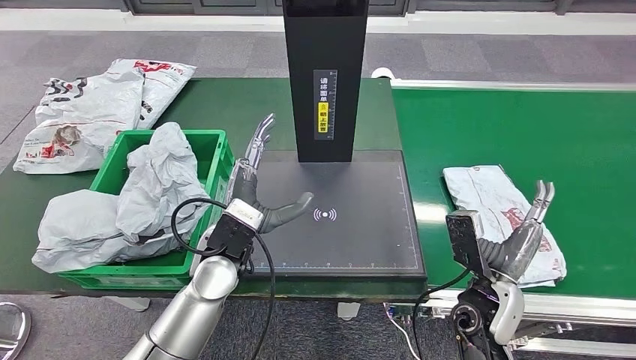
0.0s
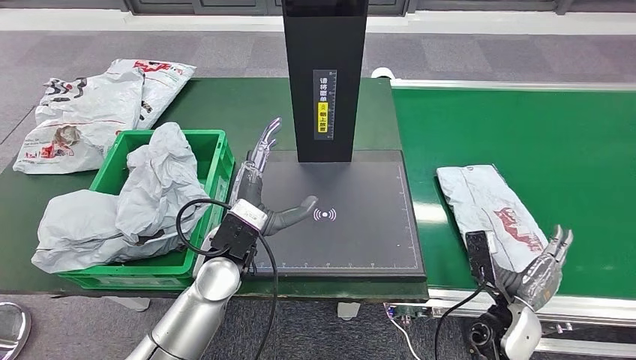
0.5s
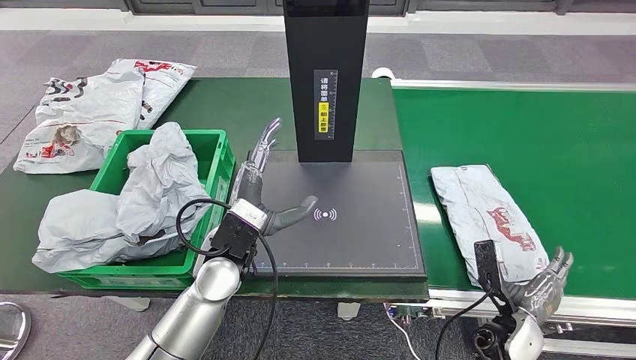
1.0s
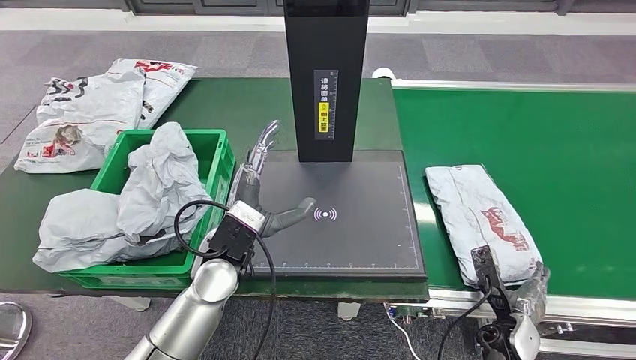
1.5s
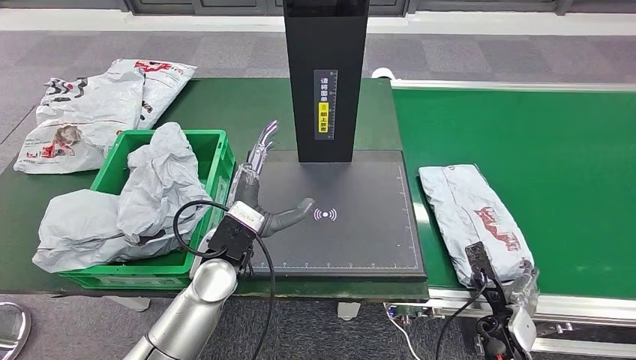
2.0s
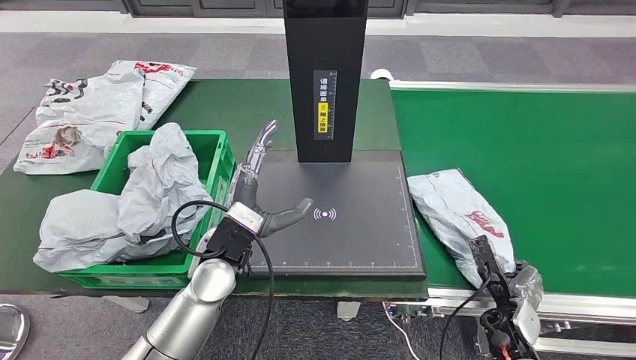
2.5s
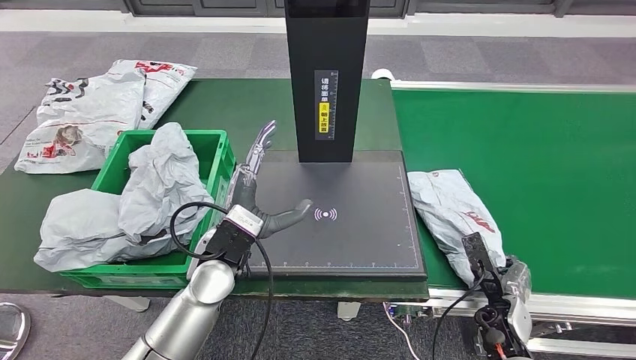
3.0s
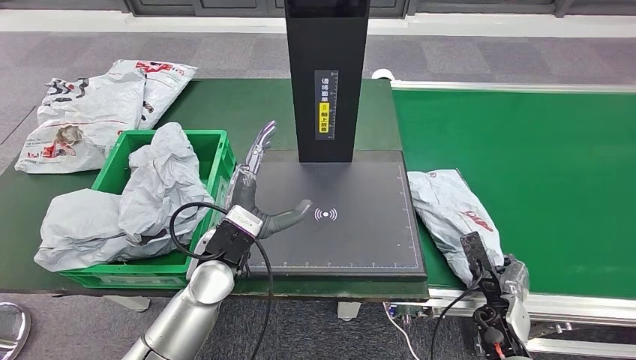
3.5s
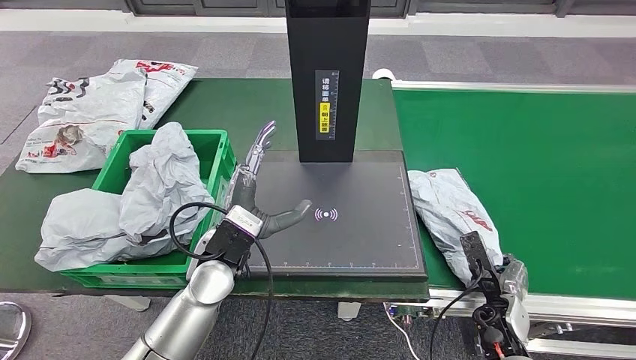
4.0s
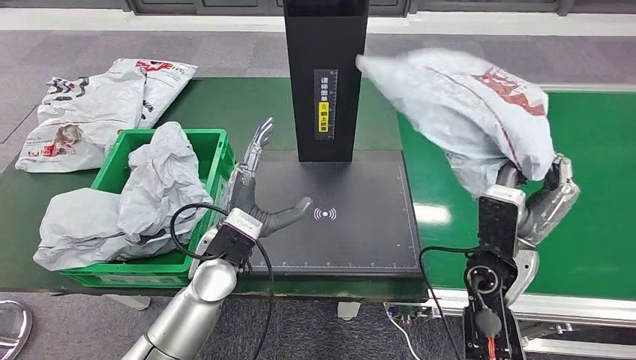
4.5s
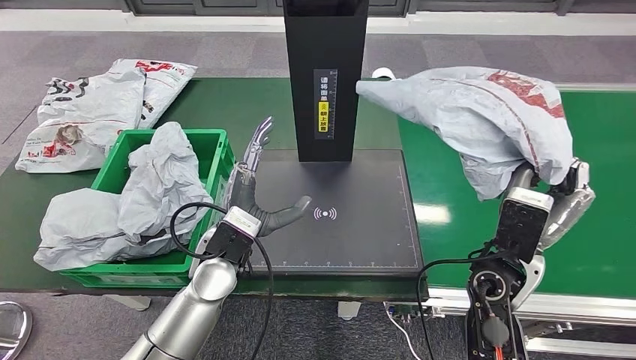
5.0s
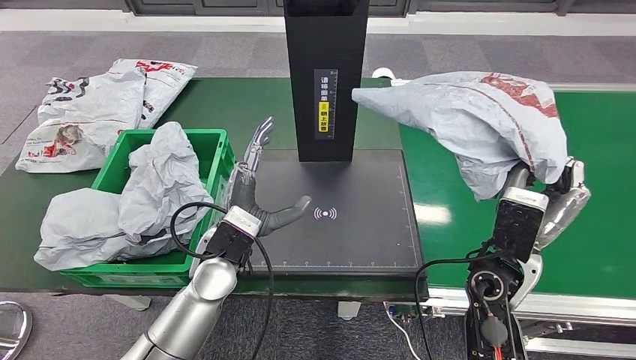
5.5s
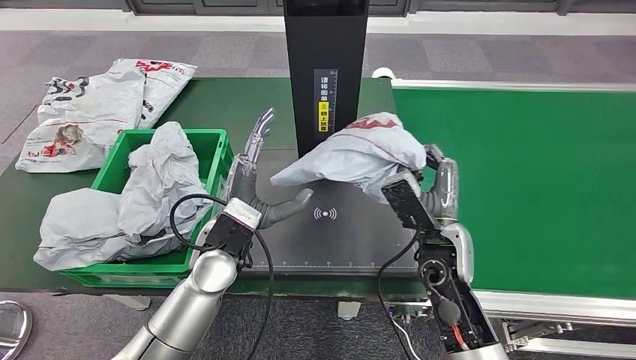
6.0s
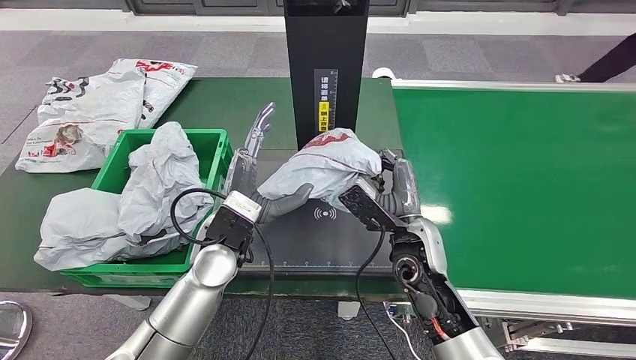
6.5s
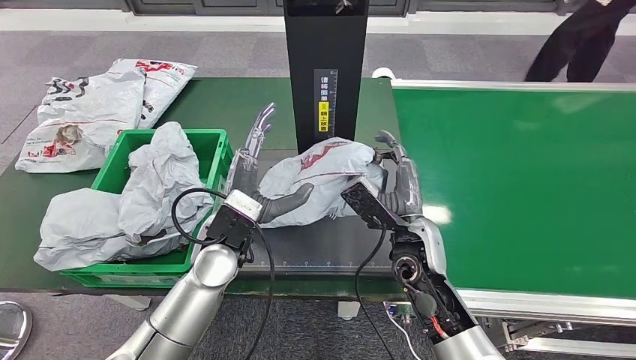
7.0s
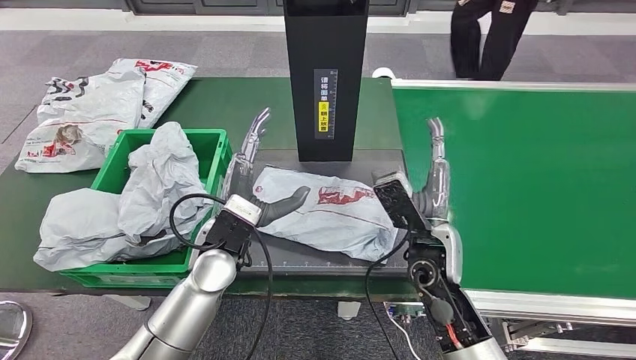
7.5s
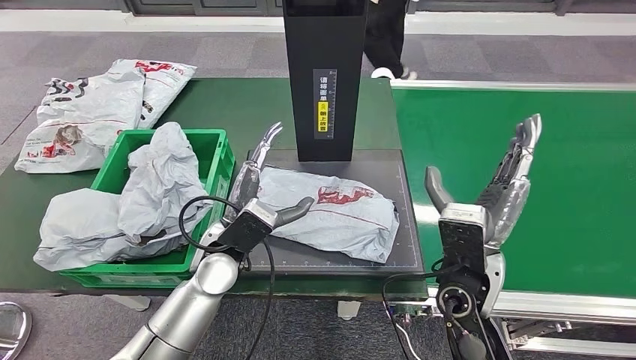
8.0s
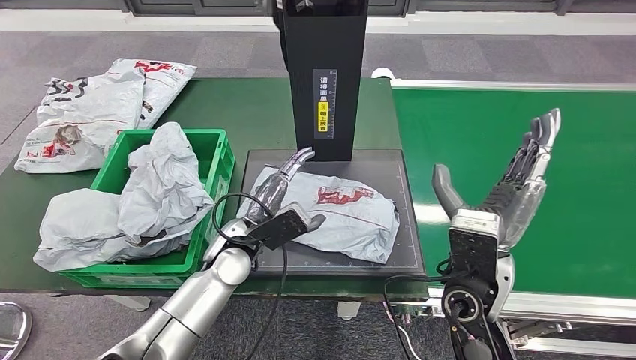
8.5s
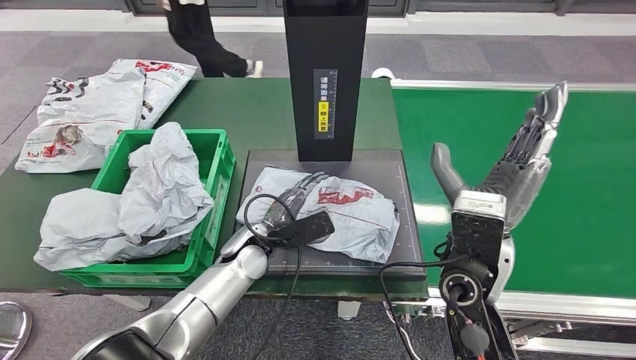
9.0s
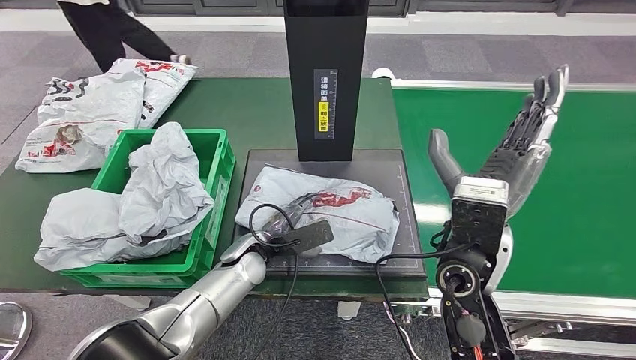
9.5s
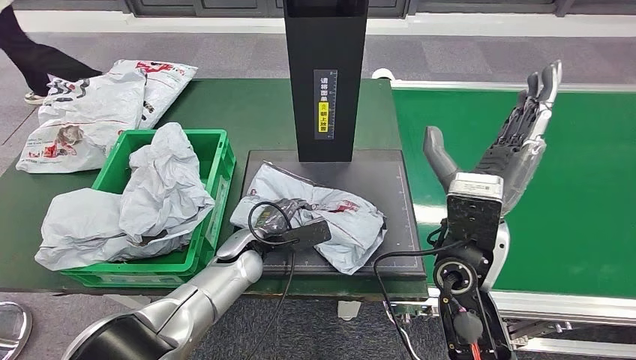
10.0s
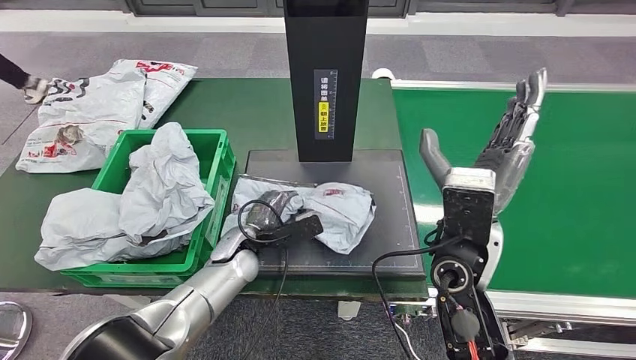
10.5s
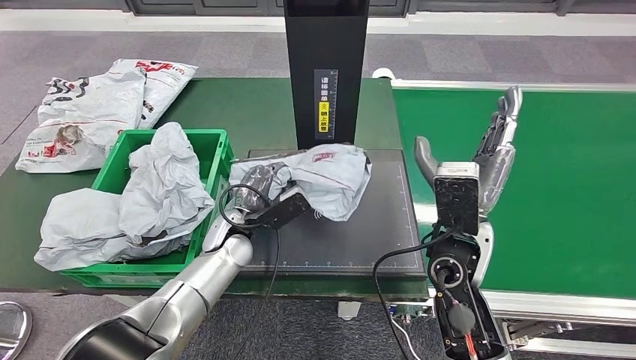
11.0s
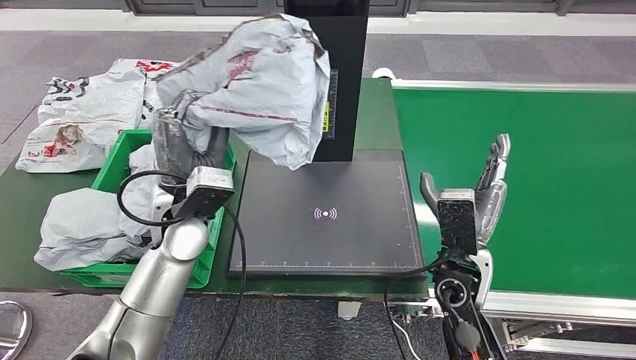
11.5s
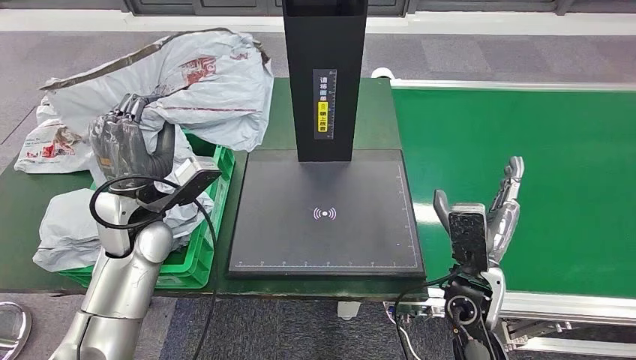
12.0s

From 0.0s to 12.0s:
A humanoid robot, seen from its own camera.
Step, from 1.0s to 5.0s: Pick up the parcel from the conveyor belt.
Step, from 5.5s to 8.5s: Place the parcel onto the inbound machine.
From 0.0s to 2.0s: The right hand travels downward and to the right by some 15 cm.
From 2.0s to 4.0s: The hands stay close to where they were, moving slightly.
From 6.0s to 8.0s: The right hand shifts by approximately 5 cm.

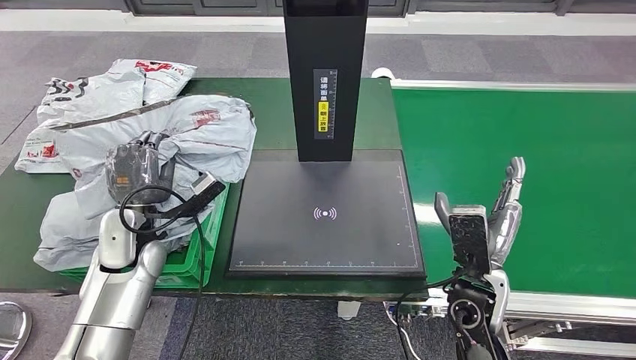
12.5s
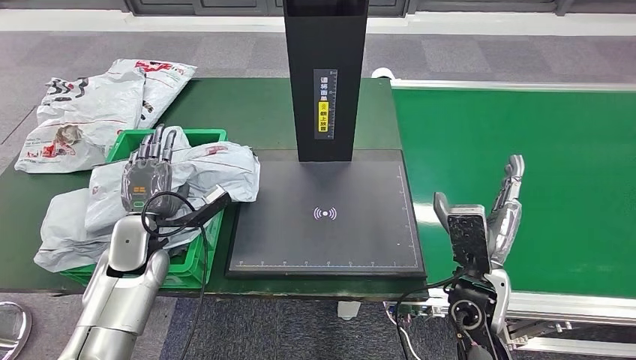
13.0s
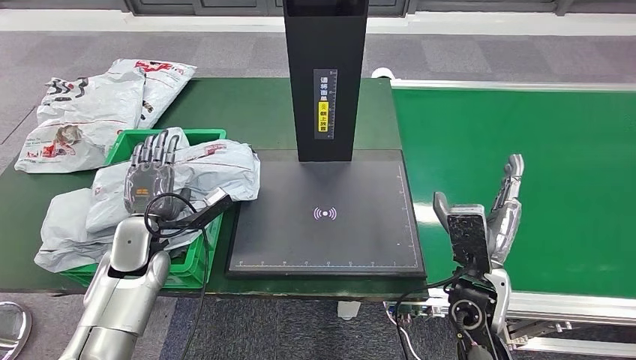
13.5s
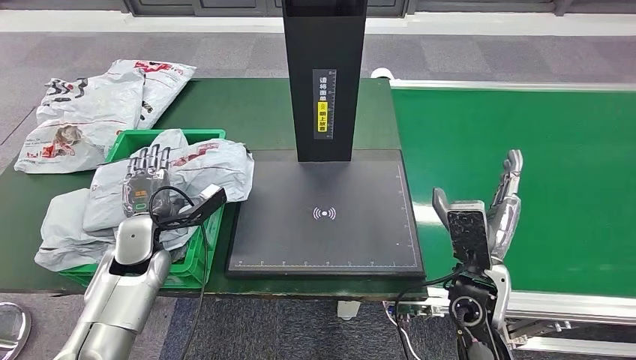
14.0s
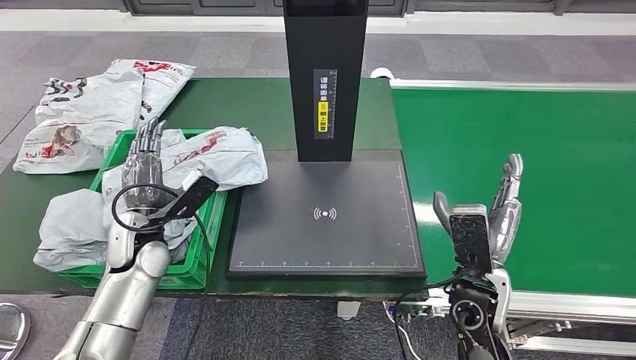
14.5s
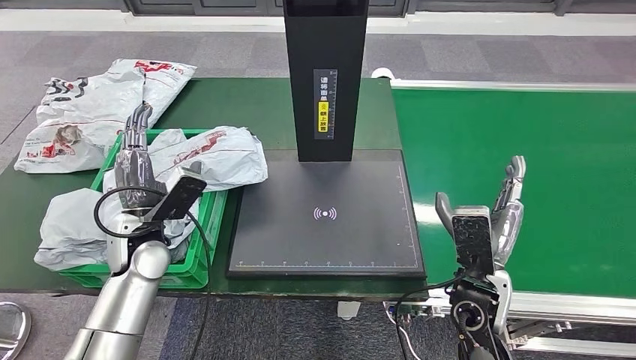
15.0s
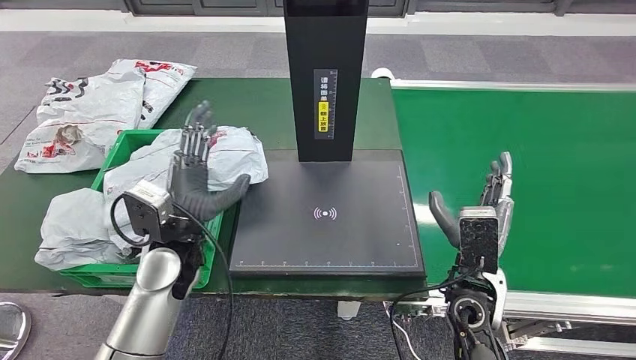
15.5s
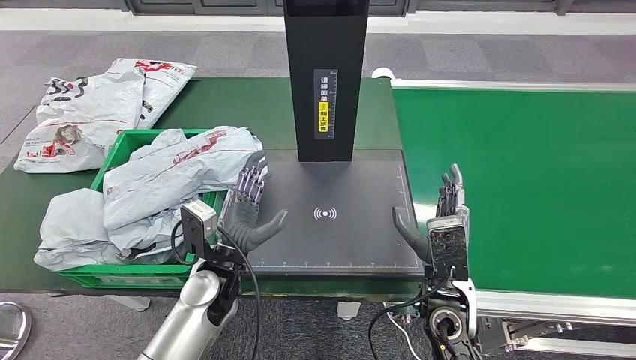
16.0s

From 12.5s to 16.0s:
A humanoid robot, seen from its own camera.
Step, from 13.0s to 16.0s: Place the parcel into the delivery box.
From 14.5s to 16.0s: The left hand heads to the right, covering some 15 cm, while the right hand ends up roughly 5 cm from where it was.
